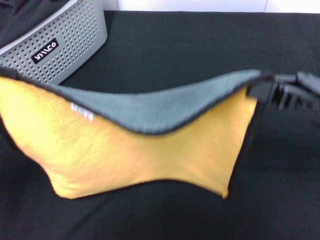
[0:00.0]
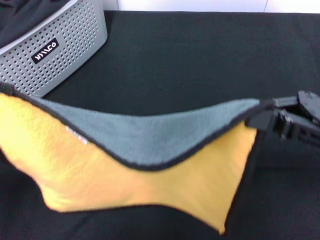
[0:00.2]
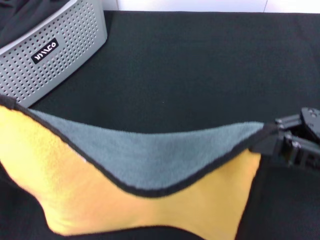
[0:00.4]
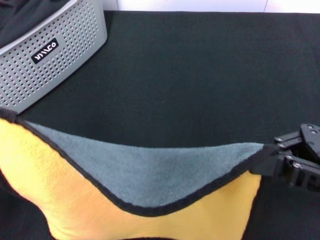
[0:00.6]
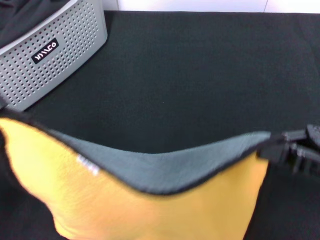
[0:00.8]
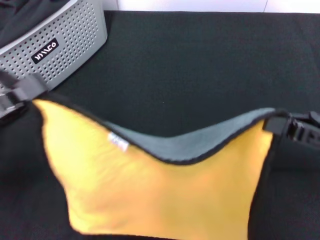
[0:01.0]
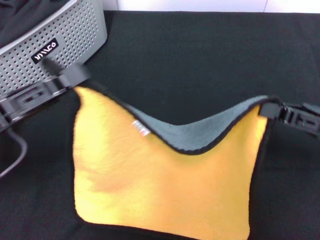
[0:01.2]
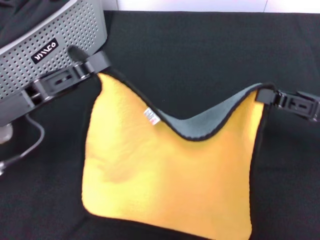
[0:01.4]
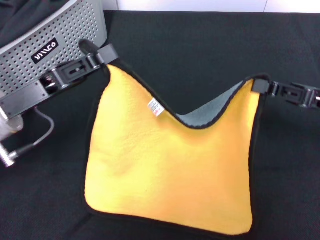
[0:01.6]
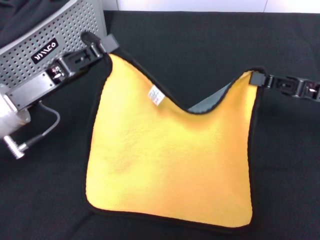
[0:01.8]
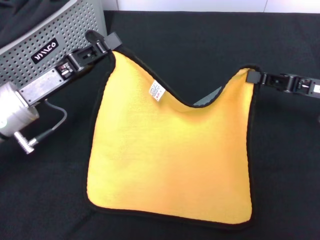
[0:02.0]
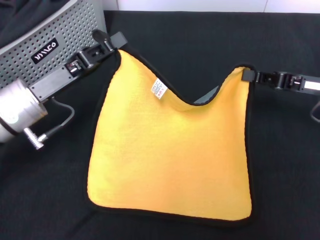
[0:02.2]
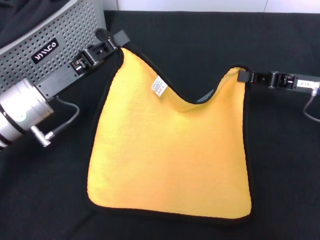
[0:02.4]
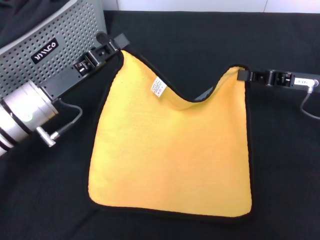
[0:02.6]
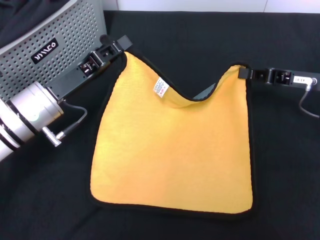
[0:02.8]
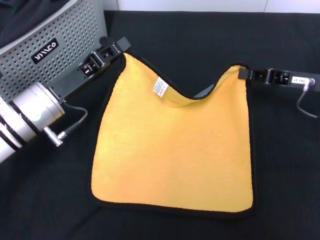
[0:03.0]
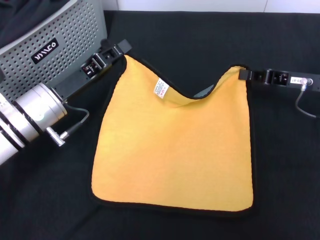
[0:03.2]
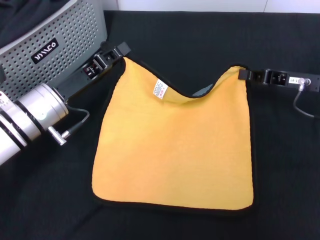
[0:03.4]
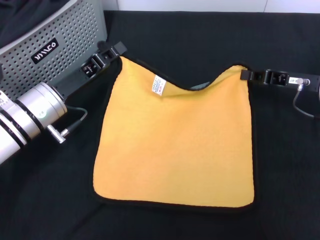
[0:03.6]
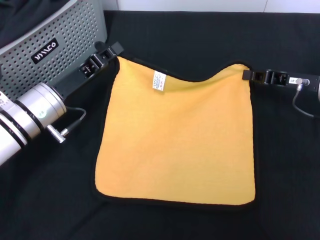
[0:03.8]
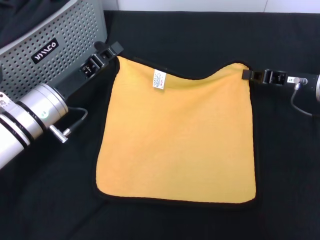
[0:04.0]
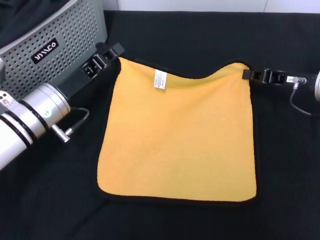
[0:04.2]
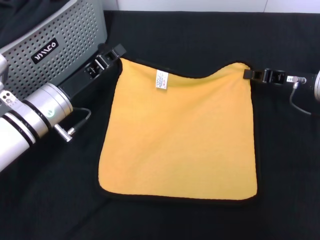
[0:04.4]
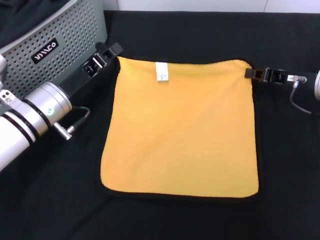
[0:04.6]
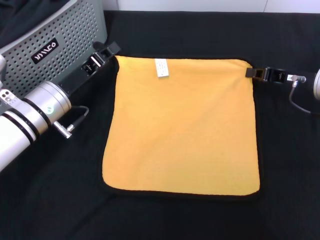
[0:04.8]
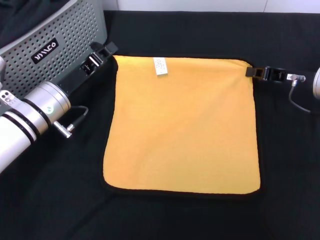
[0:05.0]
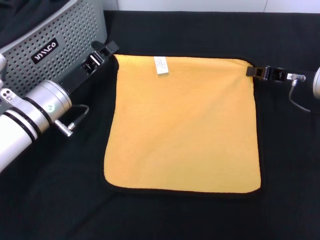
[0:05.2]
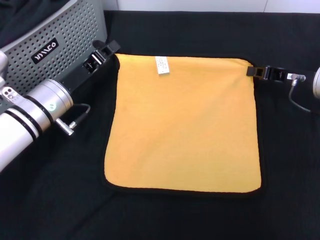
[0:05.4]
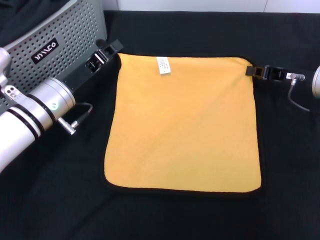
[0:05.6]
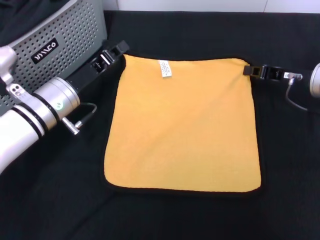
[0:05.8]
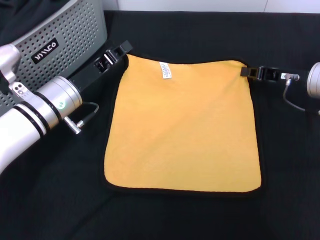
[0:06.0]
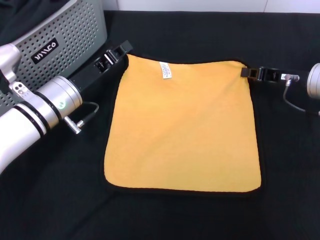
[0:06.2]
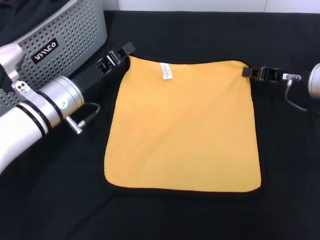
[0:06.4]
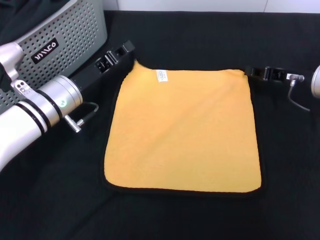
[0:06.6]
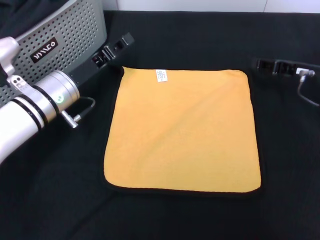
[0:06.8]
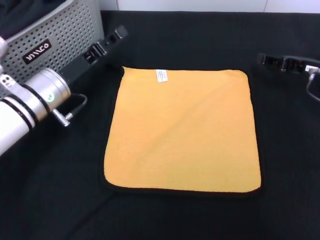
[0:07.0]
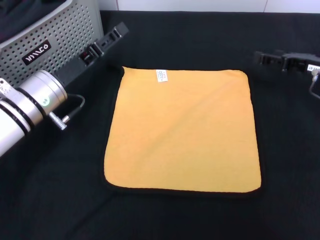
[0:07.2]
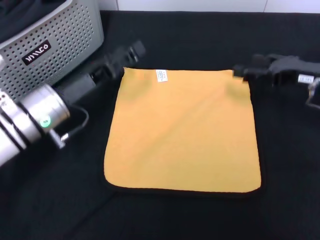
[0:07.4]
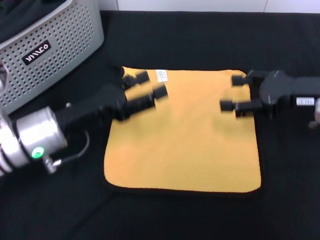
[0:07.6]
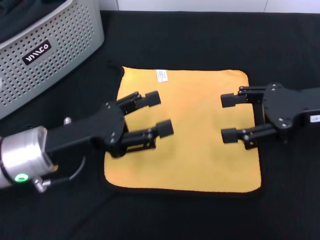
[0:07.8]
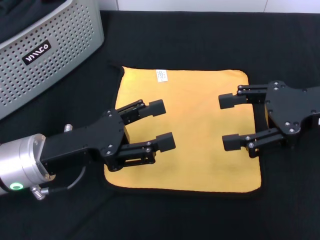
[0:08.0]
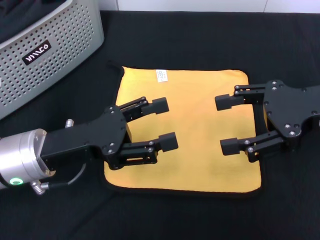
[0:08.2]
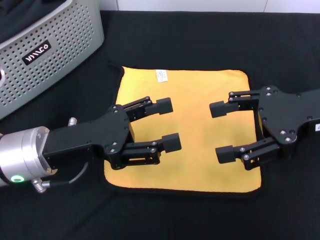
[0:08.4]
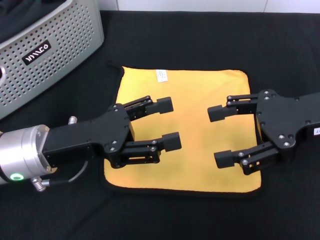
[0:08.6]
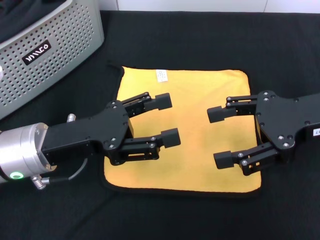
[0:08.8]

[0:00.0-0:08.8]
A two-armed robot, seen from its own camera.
Task of the whole recording: pick up the towel from the storage box and lay it flat on the black tablecloth.
Step, 0.0 to 6.4 s: Spread the towel flat with the right gripper.
0.0 to 1.4 s: The left gripper heads forward, covering about 10 cm, while the right gripper heads downward, covering approximately 5 cm.
1.4 to 3.0 s: The right gripper moves forward, about 10 cm; the left gripper travels forward by roughly 5 cm.
3.0 to 5.8 s: The grippers stay close to where they were, moving slightly.
5.8 to 7.4 s: The right gripper opens its fingers. Meanwhile the left gripper opens its fingers.
7.4 to 8.8 s: The right gripper goes about 10 cm backward and upward. Meanwhile the left gripper shifts about 5 cm backward.

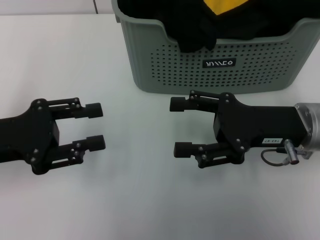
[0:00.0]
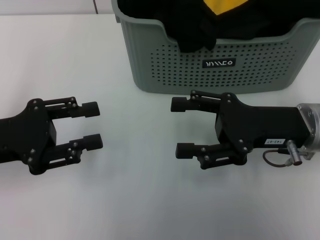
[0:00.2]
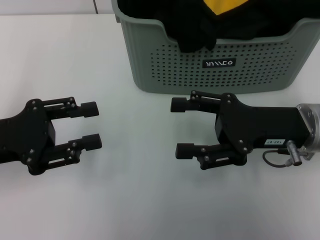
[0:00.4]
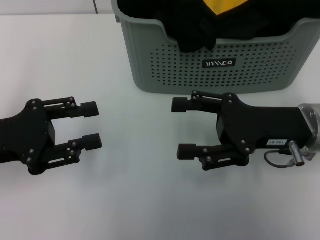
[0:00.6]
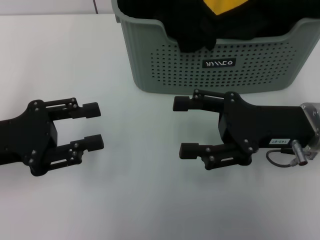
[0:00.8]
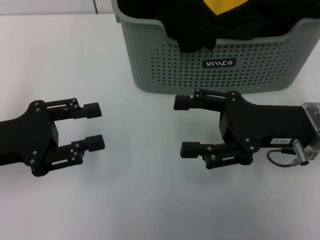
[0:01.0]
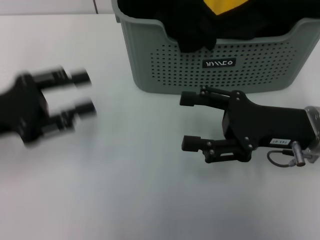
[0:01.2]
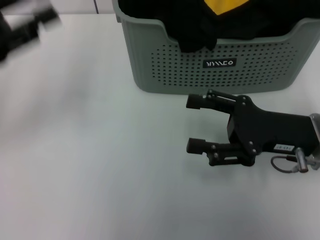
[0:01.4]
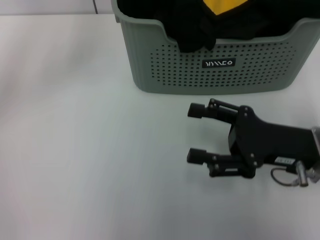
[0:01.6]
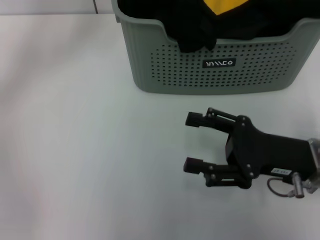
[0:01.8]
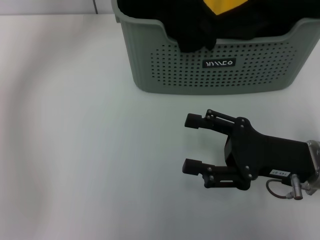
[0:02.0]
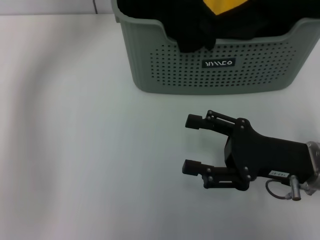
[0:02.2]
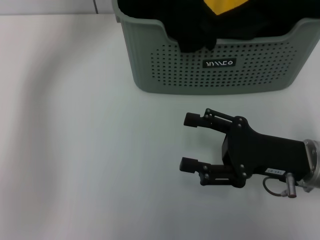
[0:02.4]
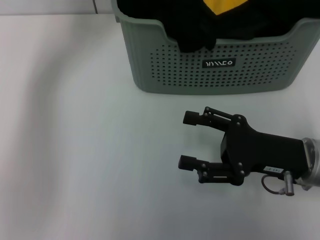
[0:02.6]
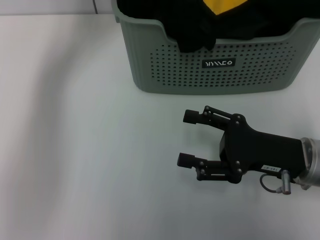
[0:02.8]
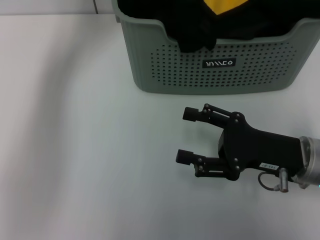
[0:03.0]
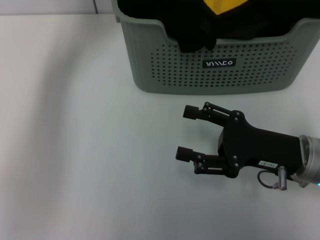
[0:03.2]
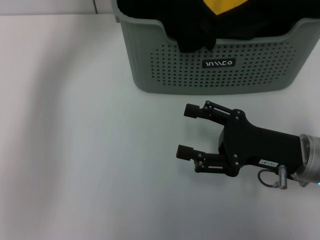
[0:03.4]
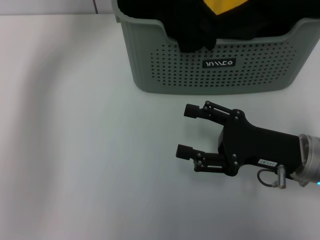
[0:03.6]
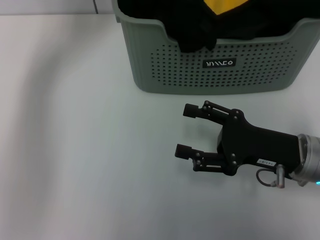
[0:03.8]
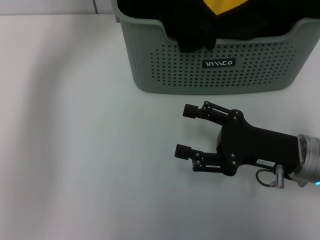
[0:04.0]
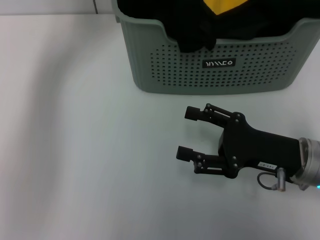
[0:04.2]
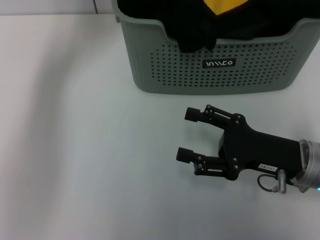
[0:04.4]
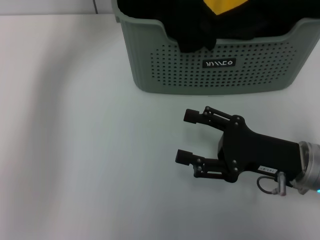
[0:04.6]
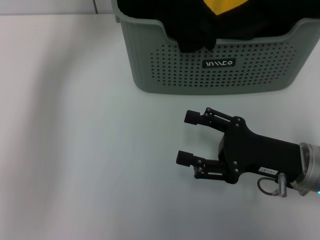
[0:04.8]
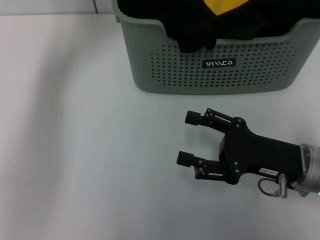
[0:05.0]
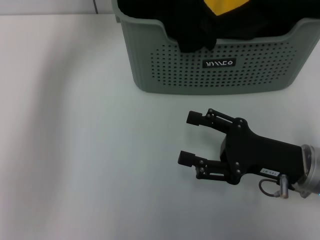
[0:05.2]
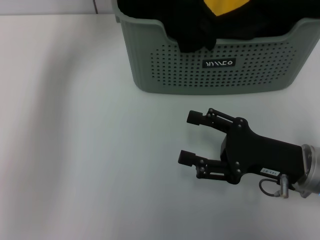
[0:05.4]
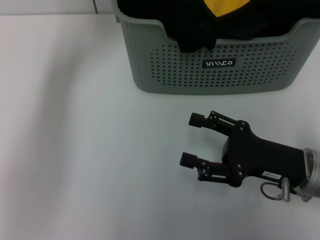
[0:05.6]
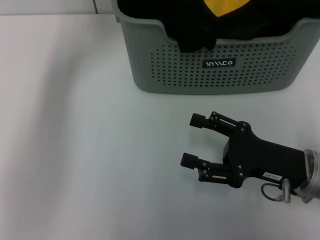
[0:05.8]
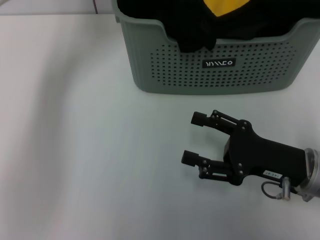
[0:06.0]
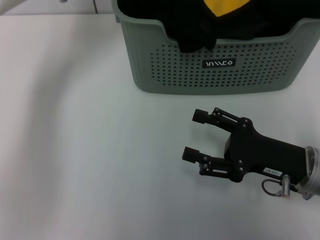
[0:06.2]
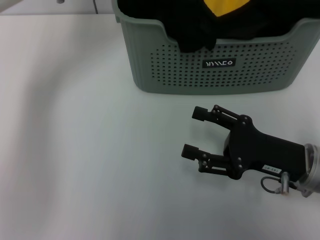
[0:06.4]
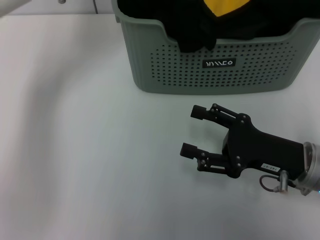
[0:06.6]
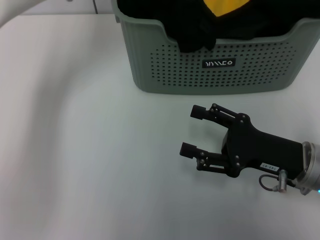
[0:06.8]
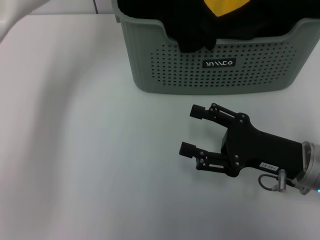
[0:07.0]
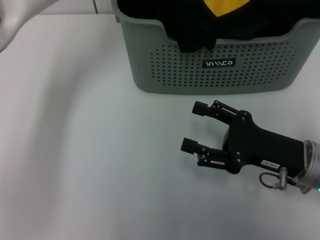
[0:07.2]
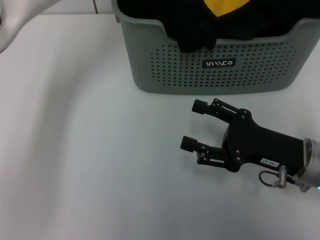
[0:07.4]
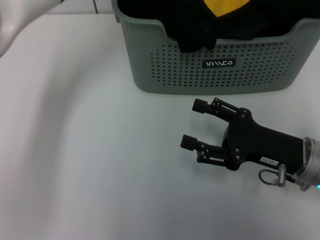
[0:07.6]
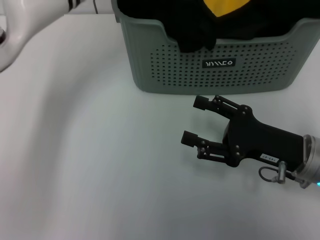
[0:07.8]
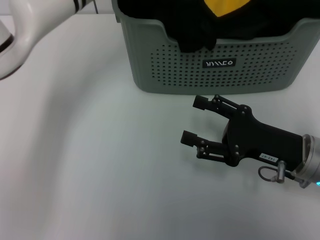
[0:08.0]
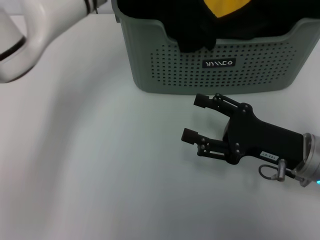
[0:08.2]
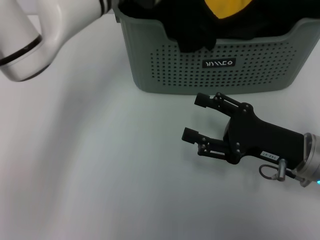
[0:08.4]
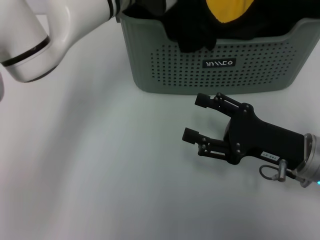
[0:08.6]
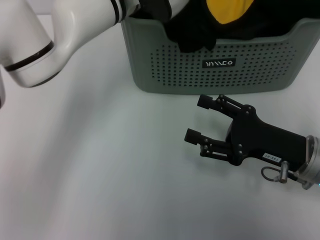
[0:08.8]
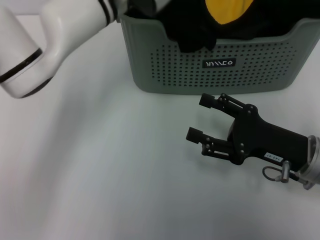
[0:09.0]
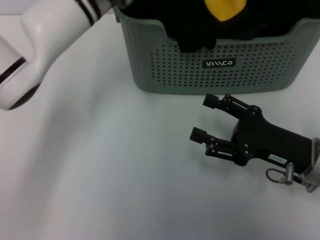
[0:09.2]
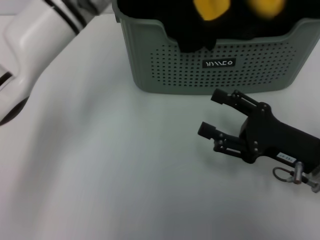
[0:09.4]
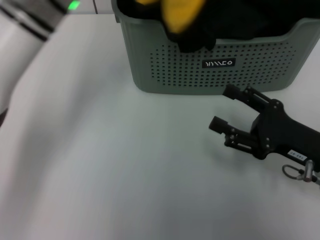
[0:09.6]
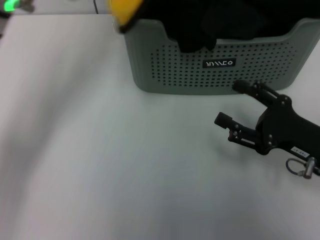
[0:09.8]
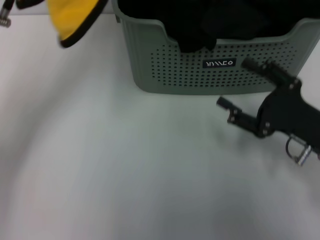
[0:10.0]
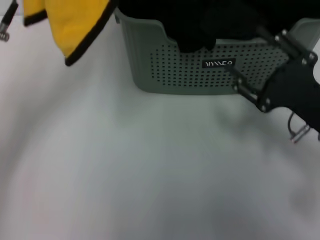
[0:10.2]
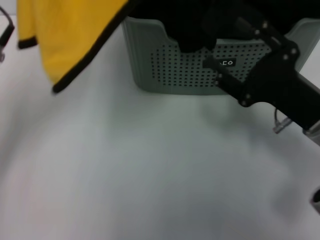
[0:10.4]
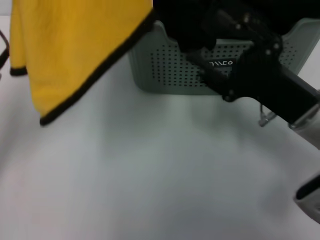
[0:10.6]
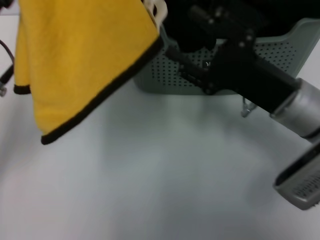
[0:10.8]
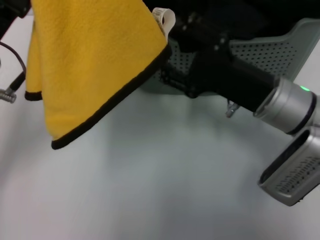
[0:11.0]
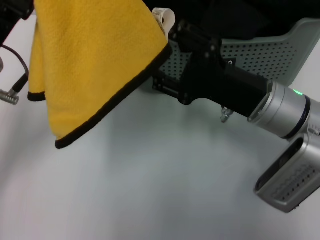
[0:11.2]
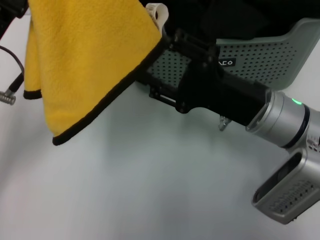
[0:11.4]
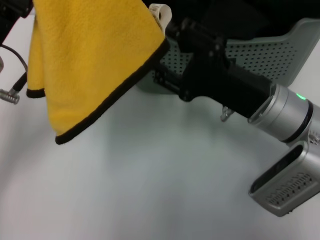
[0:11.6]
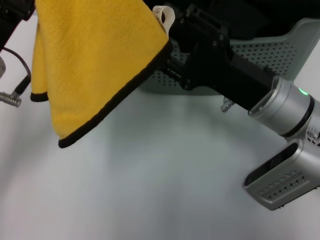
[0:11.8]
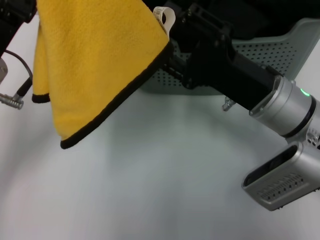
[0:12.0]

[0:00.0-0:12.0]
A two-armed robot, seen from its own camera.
Task of the whole recording: pick up the towel from the storage box and lay it flat on the table.
Step, 0.0 to 8.4 s: Pick up a towel with the left gripper.
0.0 to 1.6 s: The left gripper goes roughly 15 cm upward and forward.
1.6 to 3.0 s: The left gripper is displaced forward and to the right by some 20 cm.
3.0 to 4.4 s: The grippers make only small movements.
4.4 to 6.0 s: The left gripper closes its fingers.
6.0 to 7.6 s: The left gripper opens.
7.6 to 9.0 s: The left gripper travels to the right by about 5 cm, and closes.
9.0 to 10.4 s: The left gripper travels to the left and backward by roughly 20 cm, and closes up.
10.4 to 12.0 s: The right gripper shifts approximately 5 cm to the left.

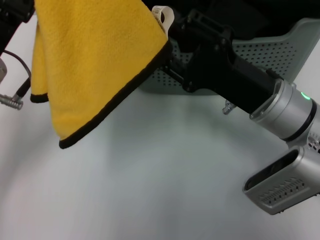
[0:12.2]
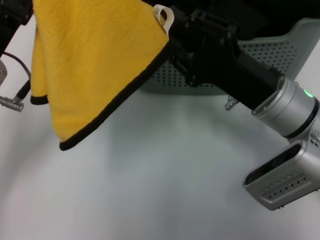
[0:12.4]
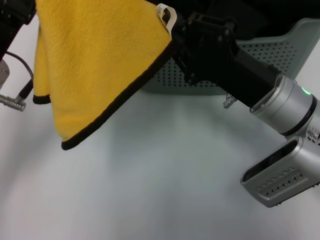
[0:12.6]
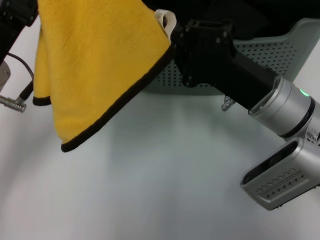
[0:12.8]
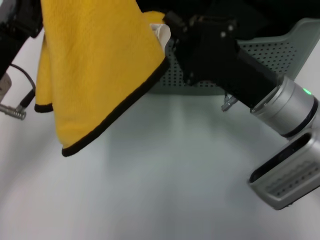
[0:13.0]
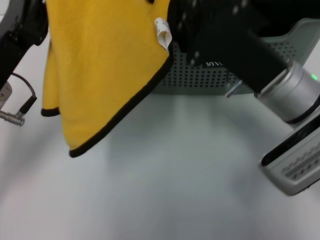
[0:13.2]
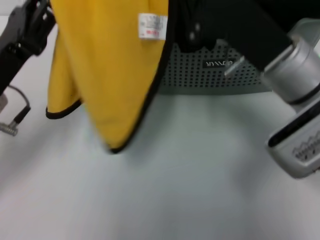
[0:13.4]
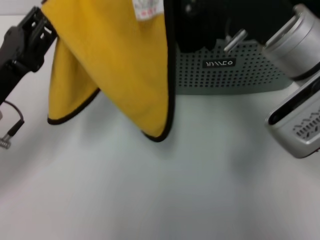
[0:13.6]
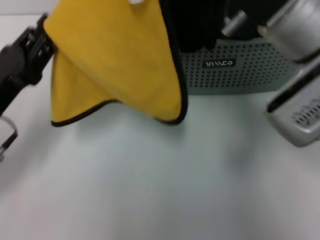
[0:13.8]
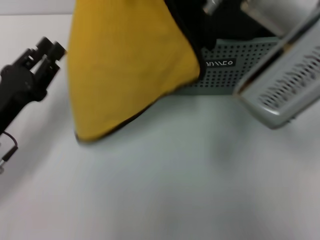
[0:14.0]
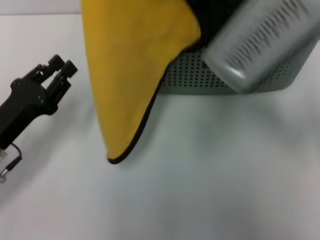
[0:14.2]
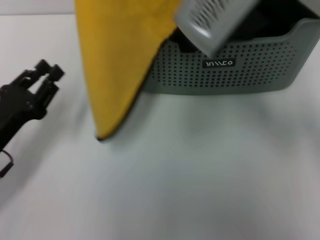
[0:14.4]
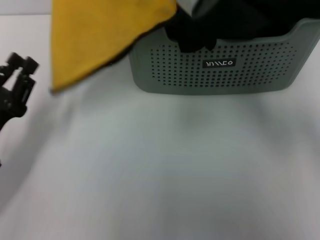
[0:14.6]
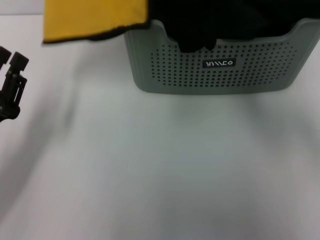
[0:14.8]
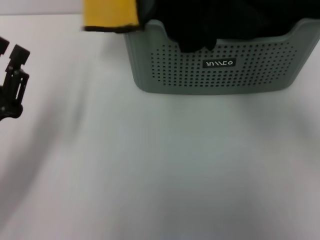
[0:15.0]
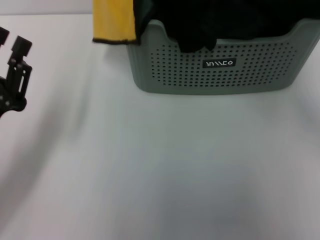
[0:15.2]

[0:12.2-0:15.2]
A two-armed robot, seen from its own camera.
Task of the whole recording: pick up the towel from the storage box and lay it flat on the table.
12.2 to 13.8 s: The right gripper is displaced upward by approximately 10 cm, and closes its fingers; the left gripper is displaced downward by about 10 cm, and opens.
13.8 to 15.2 s: The right gripper goes roughly 15 cm upward and to the left.
